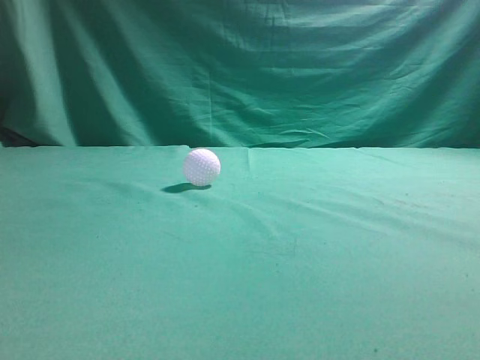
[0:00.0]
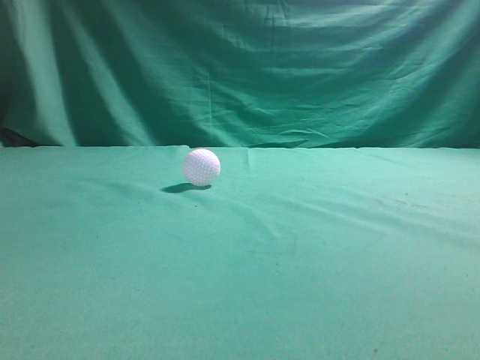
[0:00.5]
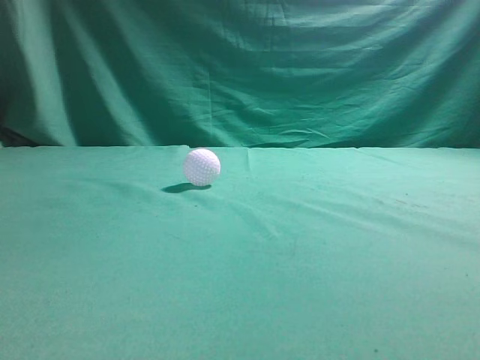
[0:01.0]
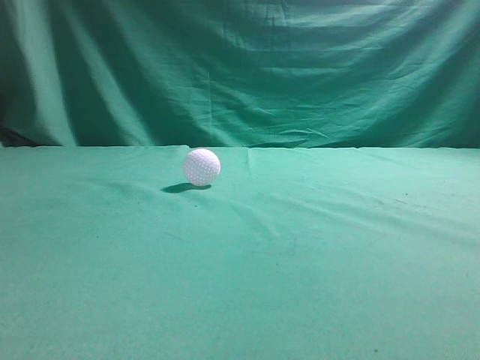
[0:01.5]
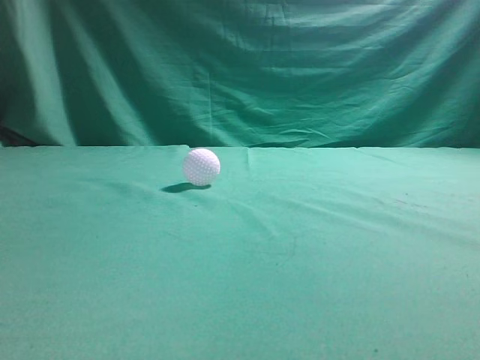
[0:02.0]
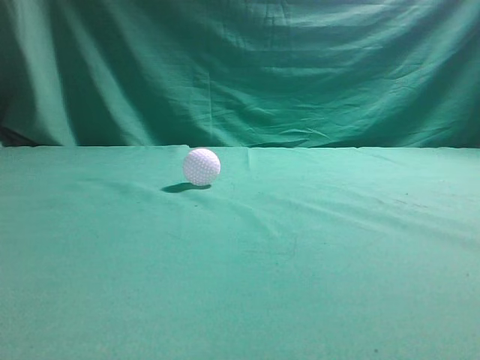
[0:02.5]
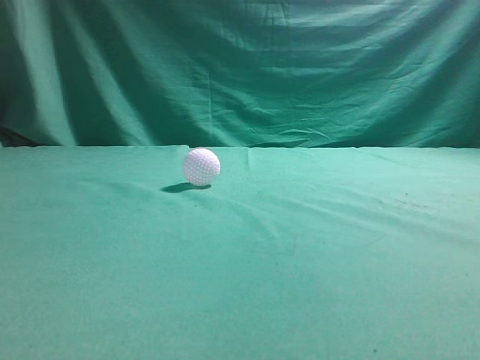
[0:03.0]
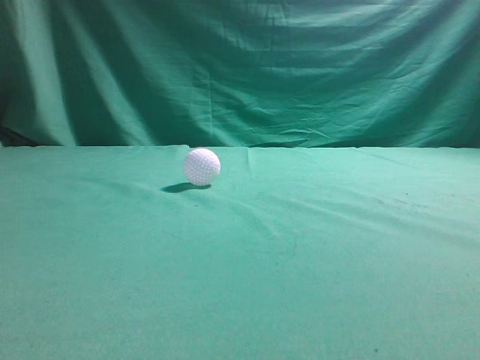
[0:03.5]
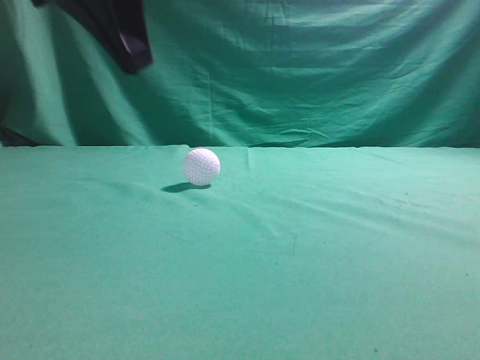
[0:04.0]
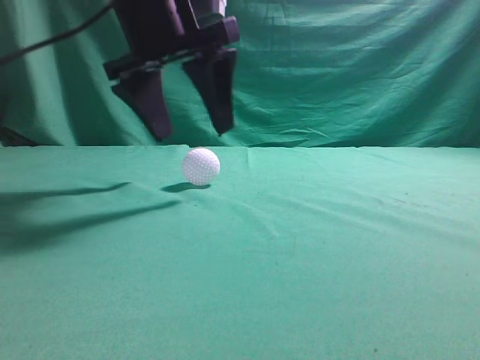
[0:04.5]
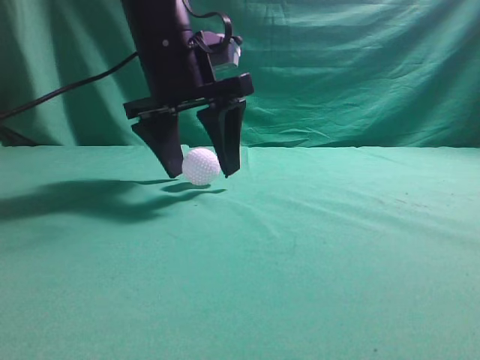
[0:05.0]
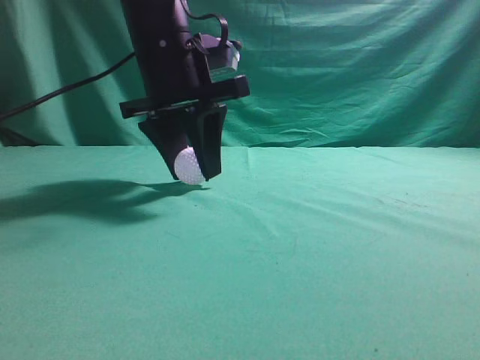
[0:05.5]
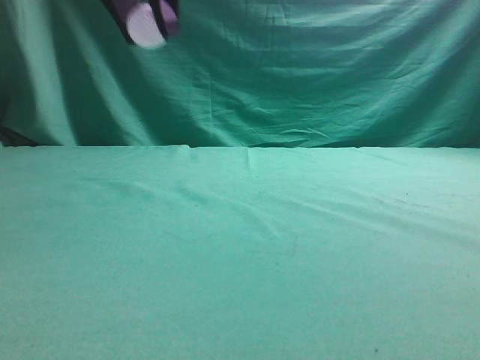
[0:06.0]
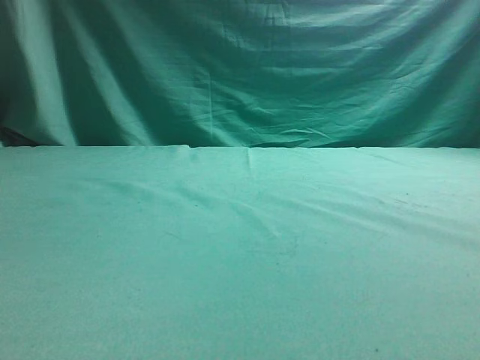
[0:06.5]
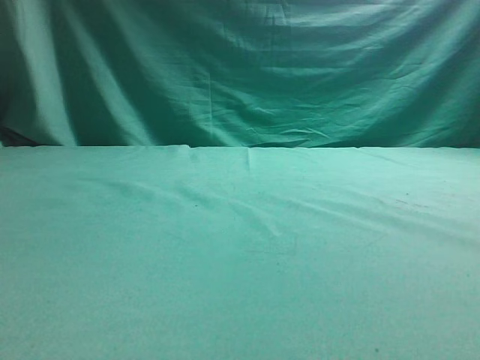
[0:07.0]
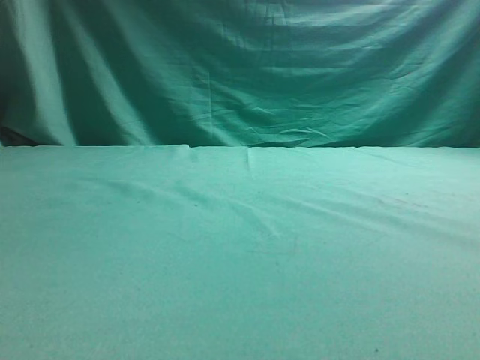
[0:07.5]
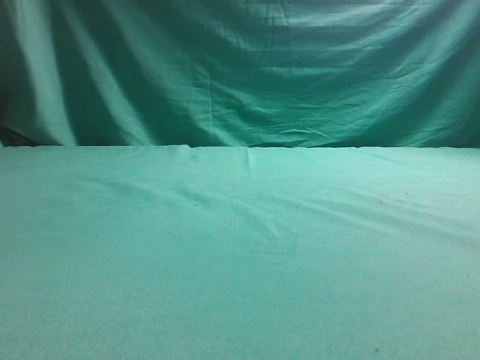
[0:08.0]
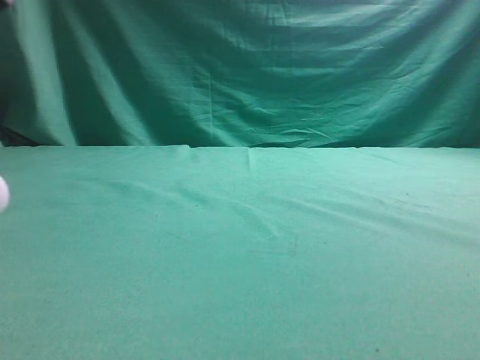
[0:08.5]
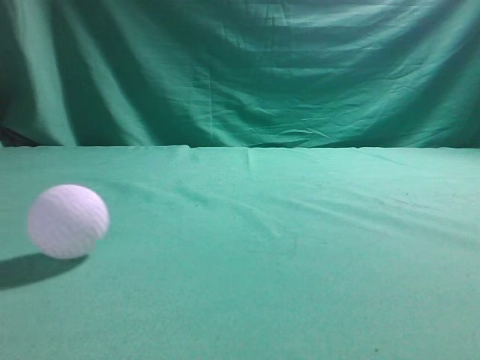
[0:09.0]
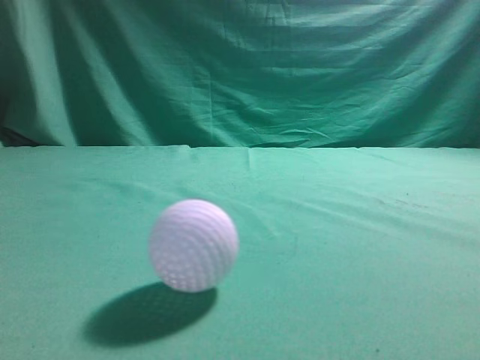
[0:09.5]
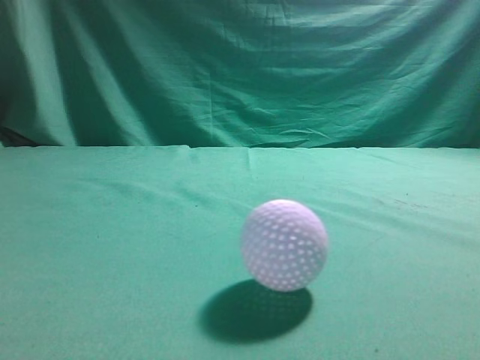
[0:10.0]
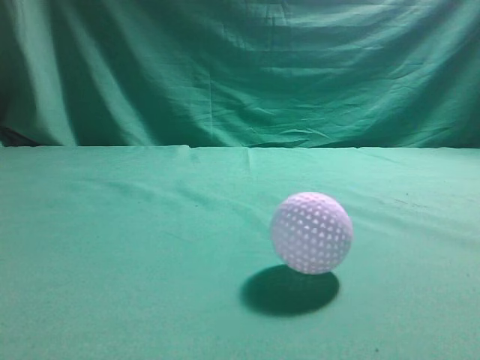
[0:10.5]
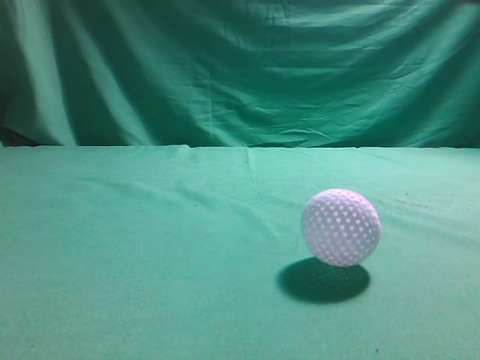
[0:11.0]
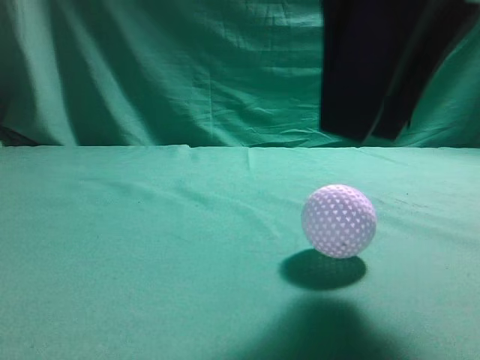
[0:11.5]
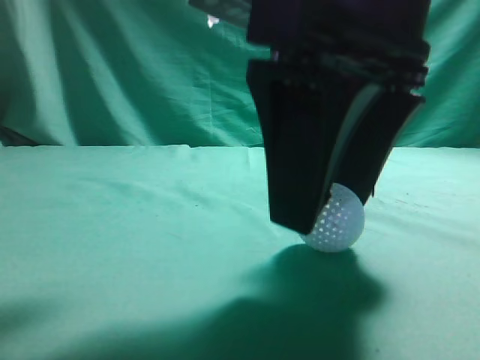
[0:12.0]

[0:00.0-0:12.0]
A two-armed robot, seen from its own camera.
Task of the whole recording: pick up the ball and place it on the plate, then pick up the ball from the plate and put it in the center of the table.
Step, 0:00.0 to 0:05.5: Grab the spherical object with your left arm.
Step, 0:06.0 to 0:08.0: Place the sphere on the white object.
0:02.0 to 0:04.0: The left gripper travels forward and to the right by roughly 30 cm.
0:04.0 to 0:06.0: The left gripper is displaced upward by approximately 10 cm, and opens up.
0:06.0 to 0:08.0: The left gripper moves to the left and downward, about 25 cm, and opens up.
0:08.0 to 0:10.0: The right gripper travels upward by roughly 10 cm; the left gripper heads backward, covering some 25 cm, and closes up.
0:10.0 to 0:12.0: The right gripper goes roughly 25 cm to the left, forward and downward, and opens its fingers.

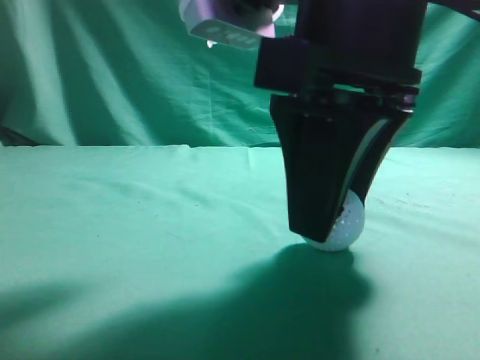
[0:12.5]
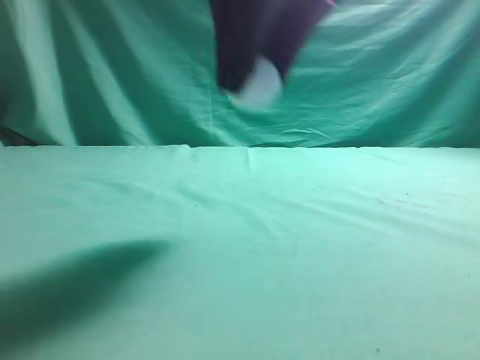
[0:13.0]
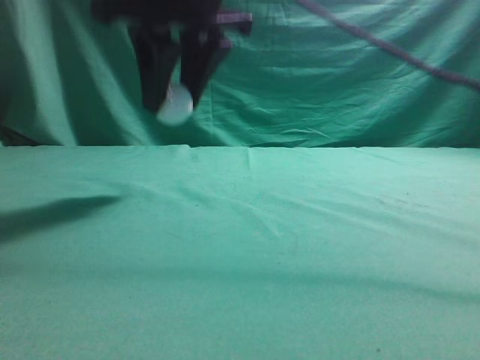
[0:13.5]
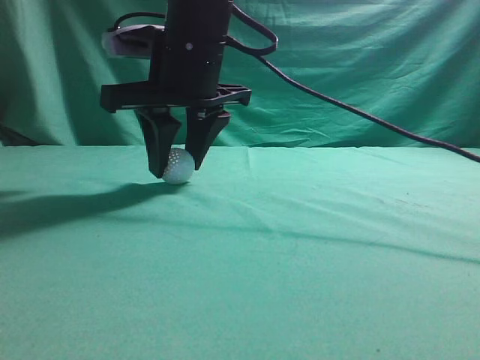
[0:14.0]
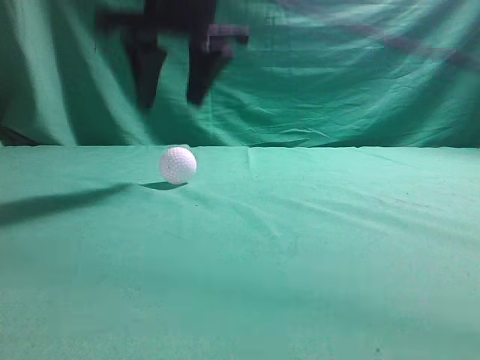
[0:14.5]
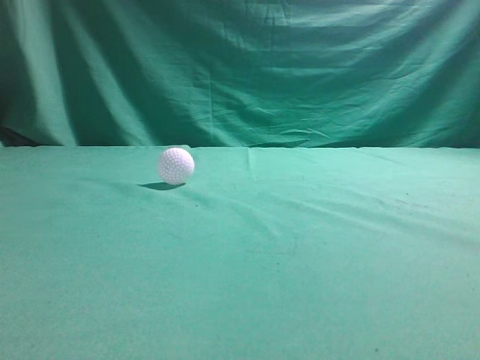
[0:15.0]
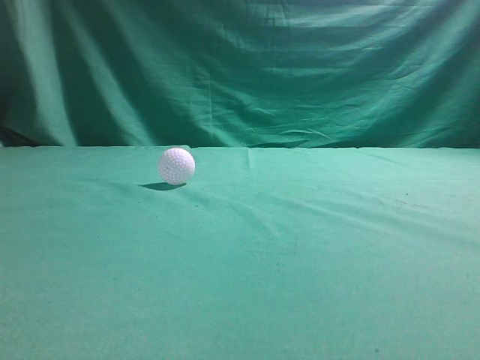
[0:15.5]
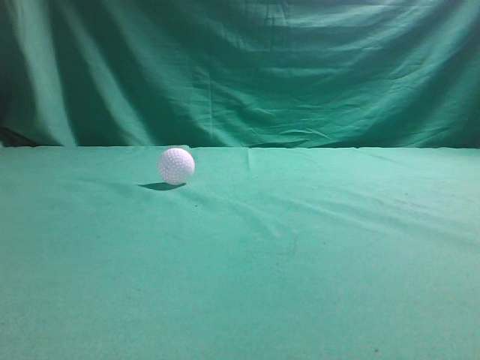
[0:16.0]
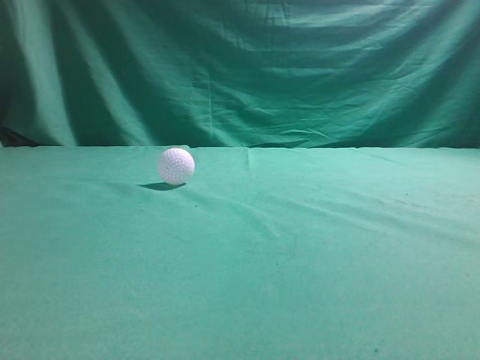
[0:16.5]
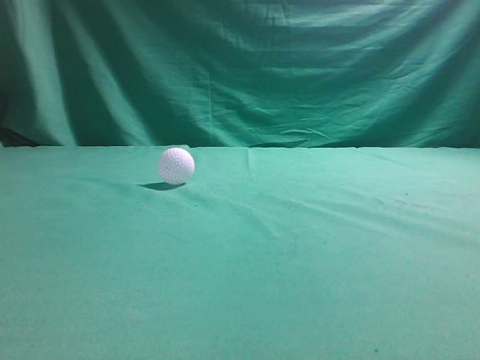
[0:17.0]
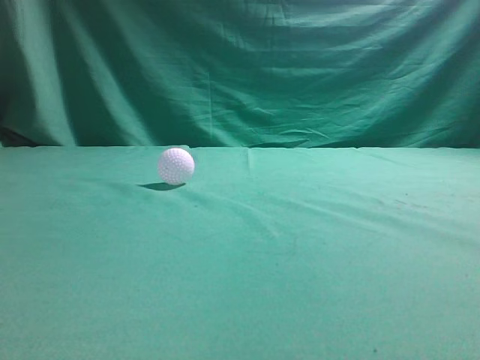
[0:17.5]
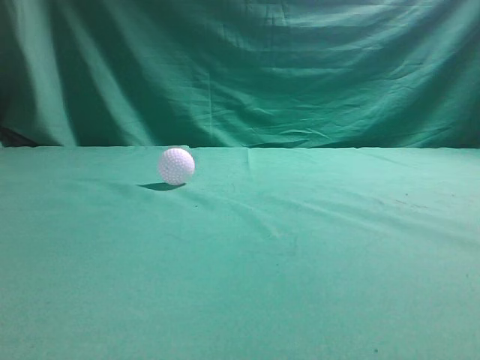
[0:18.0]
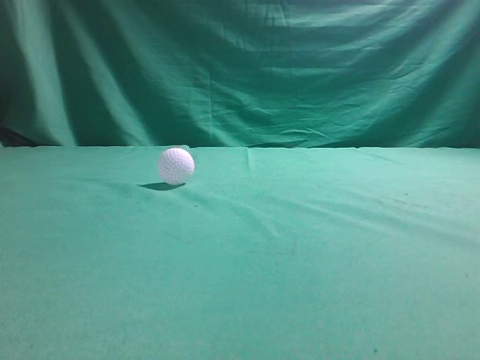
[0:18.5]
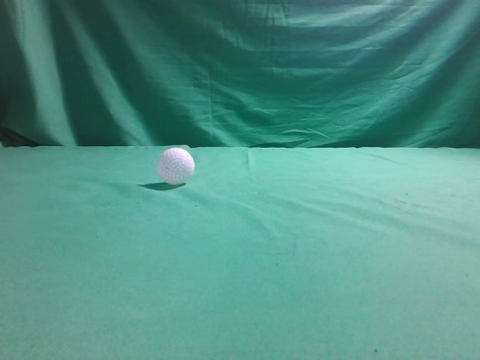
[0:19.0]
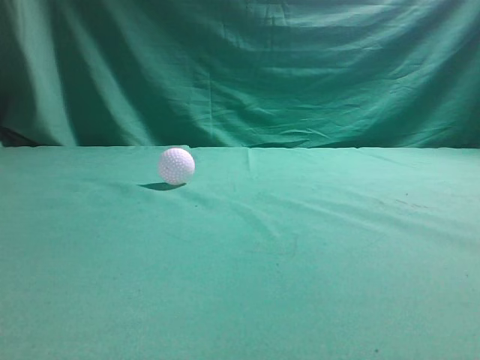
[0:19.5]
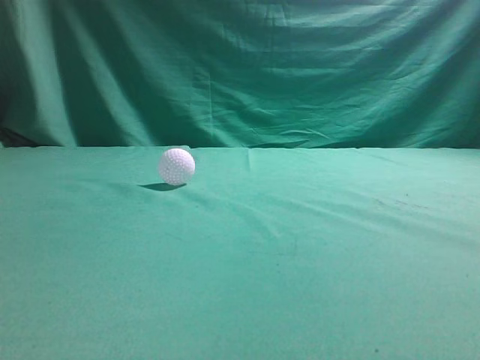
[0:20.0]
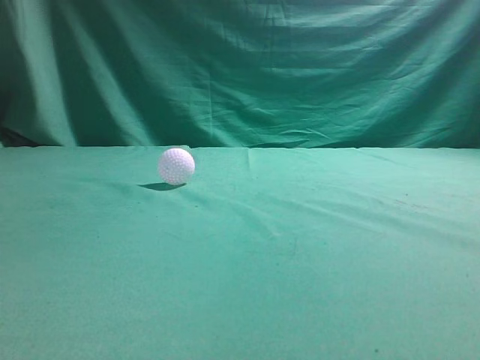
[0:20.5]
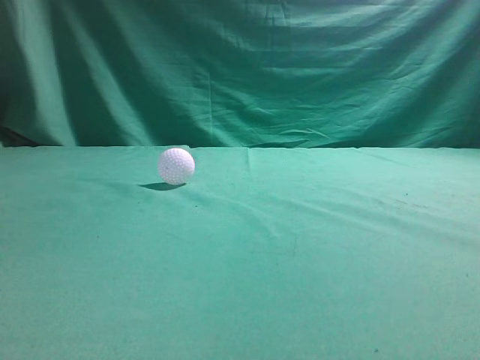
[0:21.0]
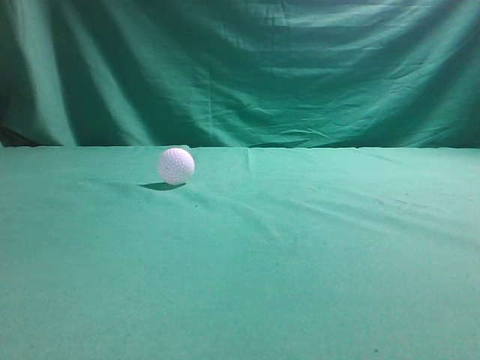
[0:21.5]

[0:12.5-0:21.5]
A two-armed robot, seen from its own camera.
Task of the whole recording: pick up the ball and place it on the plate, then pick up the ball from the plate and put it in the center of the table.
Step, 0:13.0 to 0:14.0: Put the picked-up object on the table.
0:12.5 to 0:14.5: The right gripper is displaced forward, upward and to the left by approximately 20 cm.
0:14.5 to 0:17.0: The right gripper is displaced backward and to the right by about 40 cm, and closes up. The left gripper moves backward, about 5 cm.
